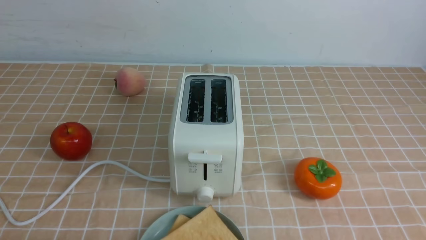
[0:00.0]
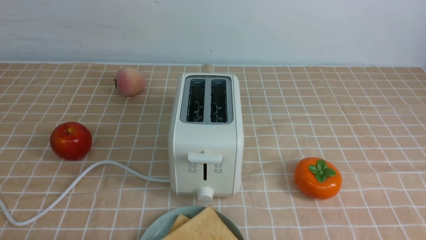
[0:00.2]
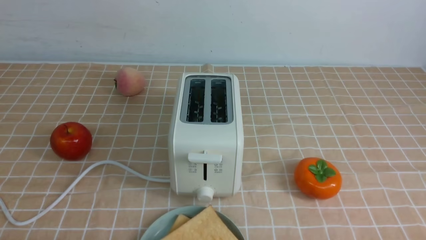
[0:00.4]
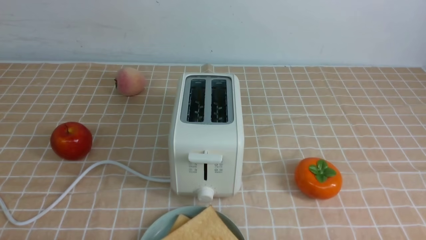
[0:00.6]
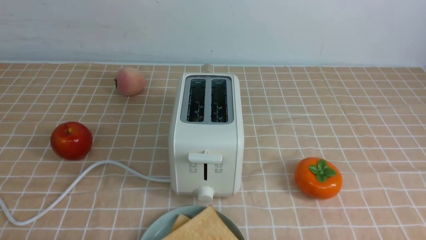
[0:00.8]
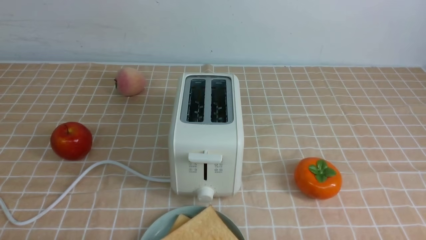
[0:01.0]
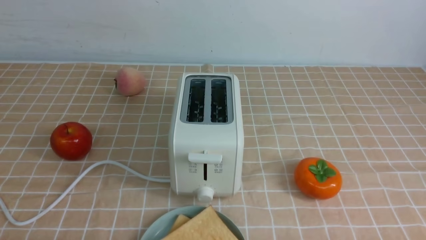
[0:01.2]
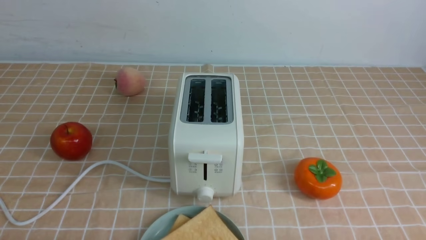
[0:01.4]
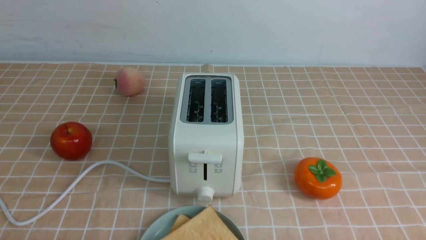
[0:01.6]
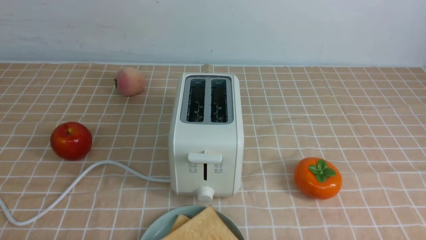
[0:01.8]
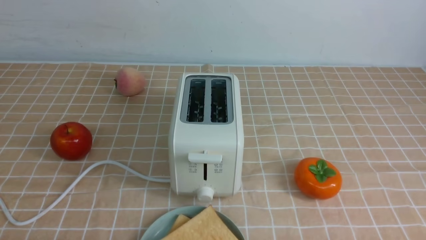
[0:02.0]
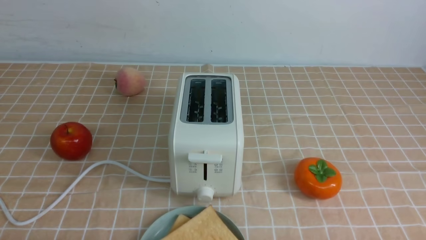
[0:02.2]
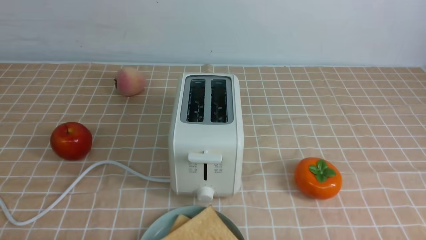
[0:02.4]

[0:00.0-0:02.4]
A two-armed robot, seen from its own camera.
Task of the whole recording: take toasted bread from bread machine on light coffee tablecloth place on plate.
0:01.2 to 0:02.4: Neither gripper changes place.

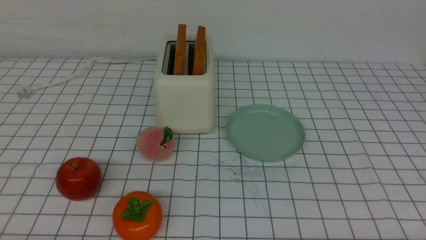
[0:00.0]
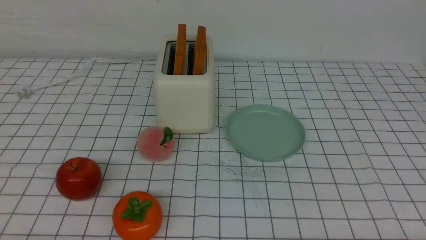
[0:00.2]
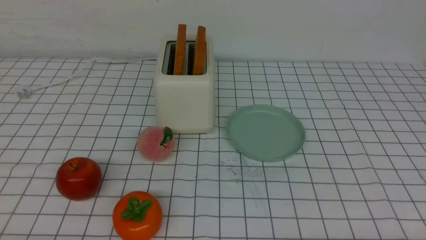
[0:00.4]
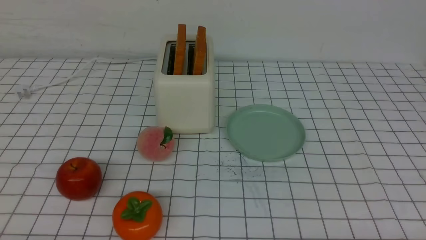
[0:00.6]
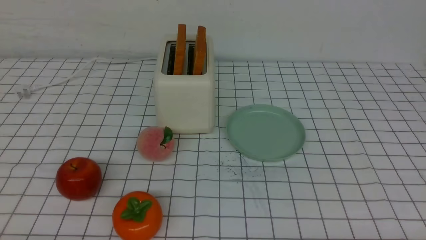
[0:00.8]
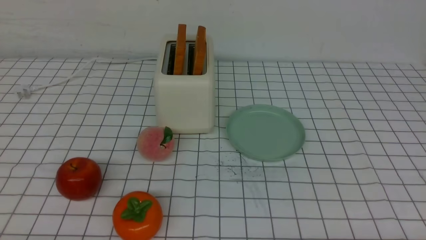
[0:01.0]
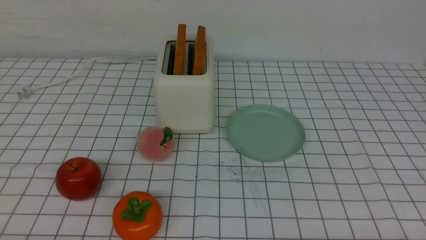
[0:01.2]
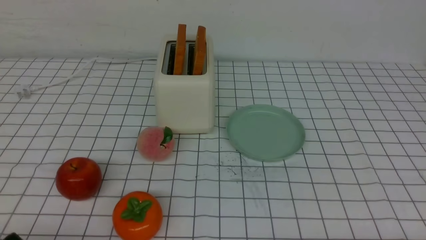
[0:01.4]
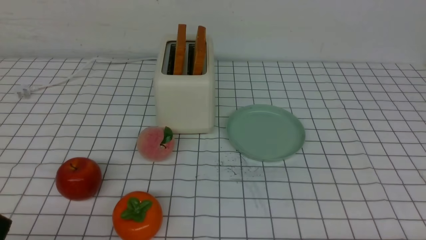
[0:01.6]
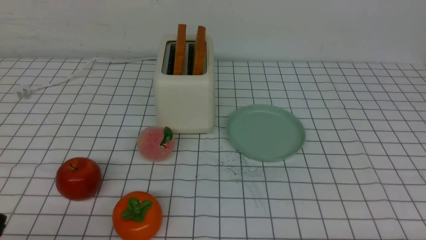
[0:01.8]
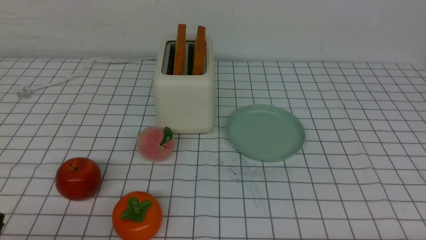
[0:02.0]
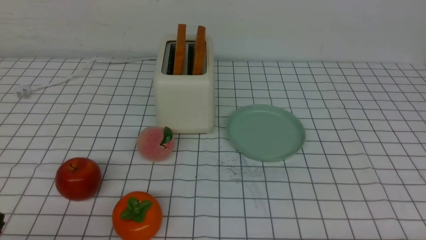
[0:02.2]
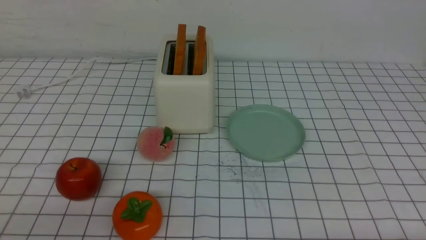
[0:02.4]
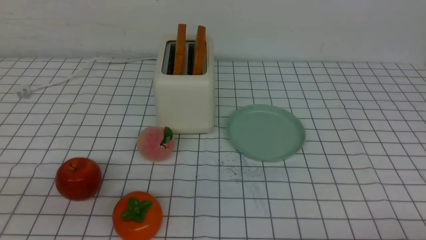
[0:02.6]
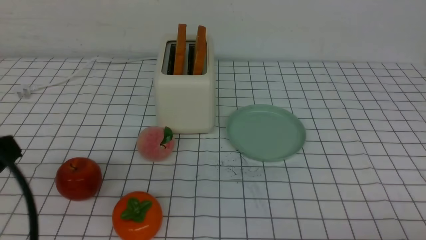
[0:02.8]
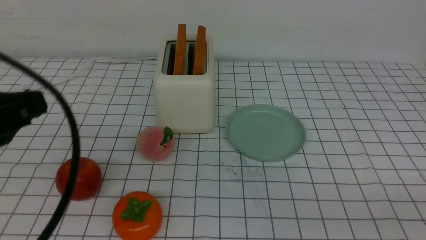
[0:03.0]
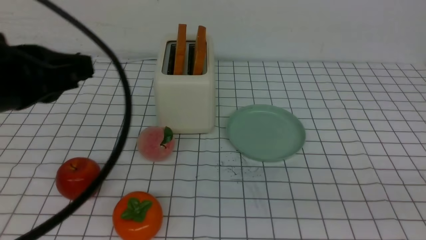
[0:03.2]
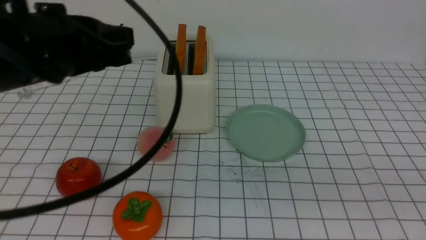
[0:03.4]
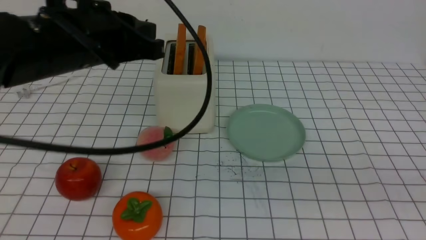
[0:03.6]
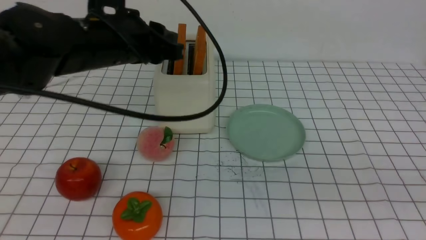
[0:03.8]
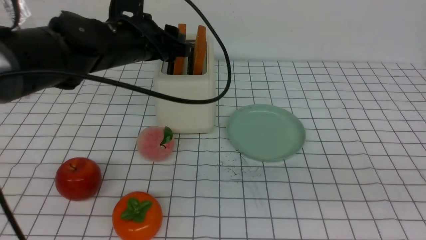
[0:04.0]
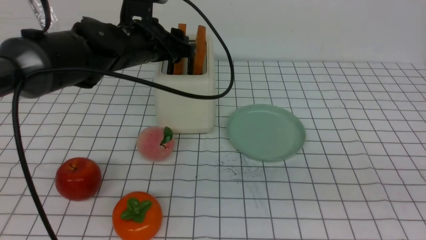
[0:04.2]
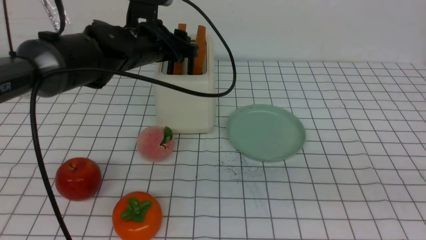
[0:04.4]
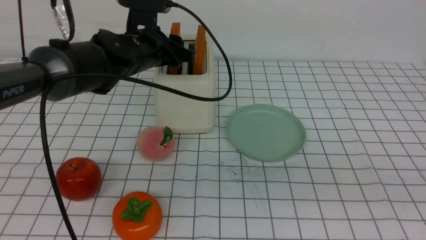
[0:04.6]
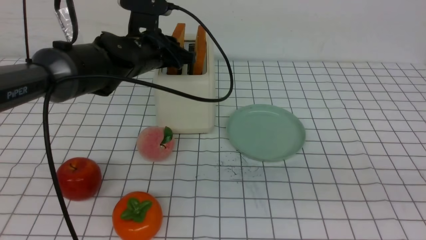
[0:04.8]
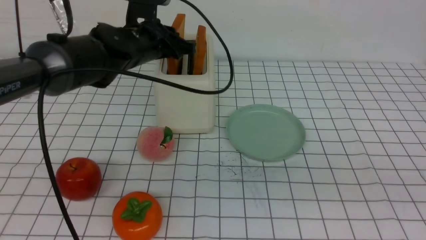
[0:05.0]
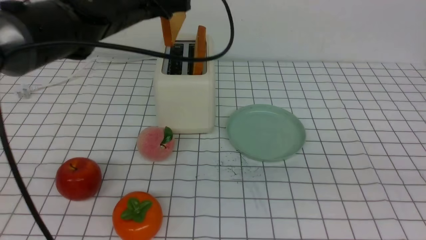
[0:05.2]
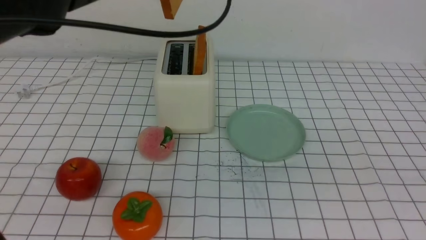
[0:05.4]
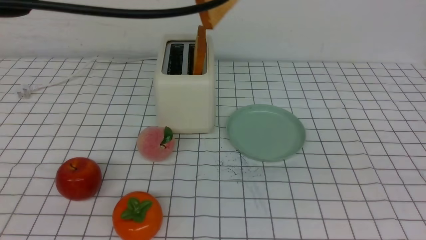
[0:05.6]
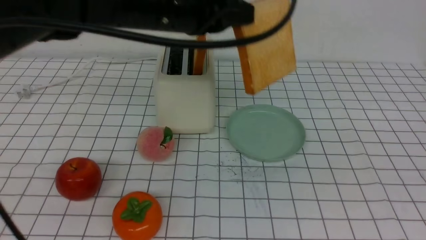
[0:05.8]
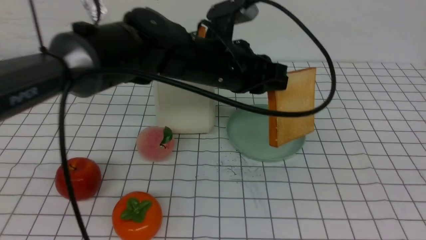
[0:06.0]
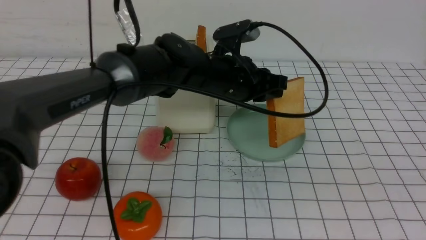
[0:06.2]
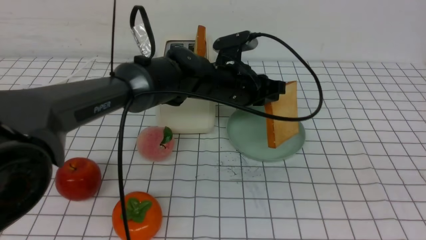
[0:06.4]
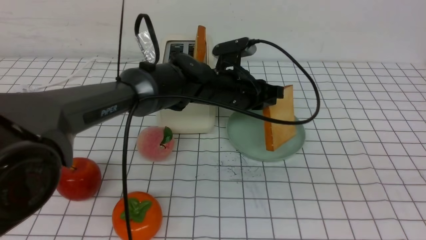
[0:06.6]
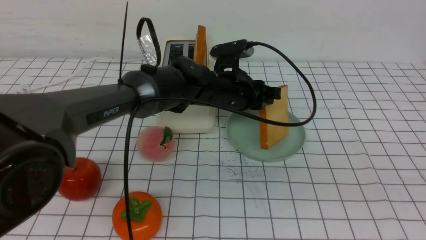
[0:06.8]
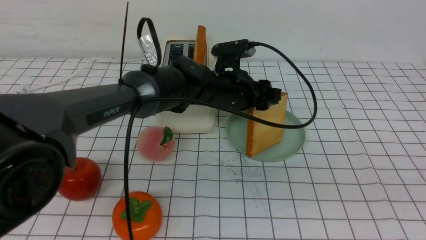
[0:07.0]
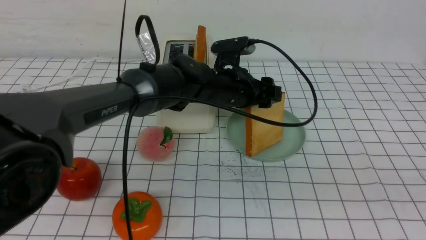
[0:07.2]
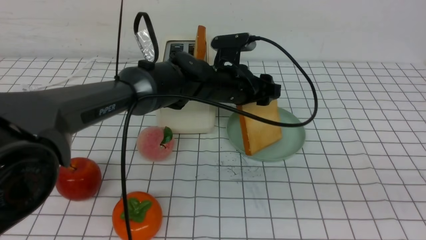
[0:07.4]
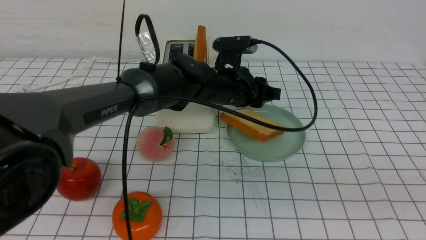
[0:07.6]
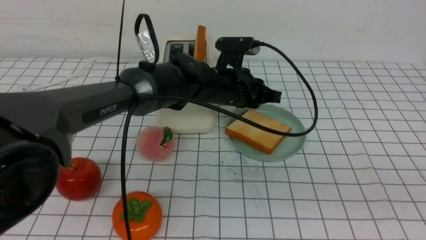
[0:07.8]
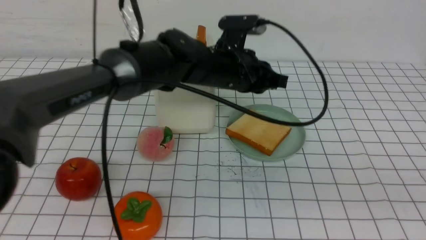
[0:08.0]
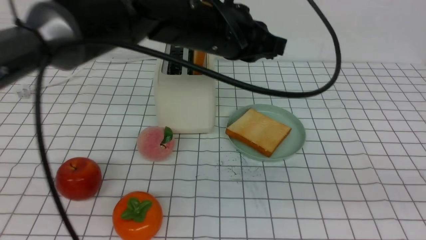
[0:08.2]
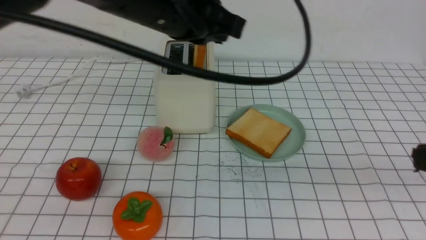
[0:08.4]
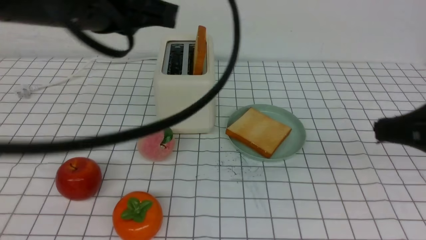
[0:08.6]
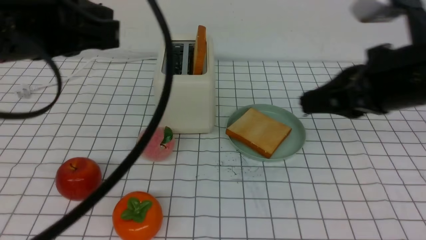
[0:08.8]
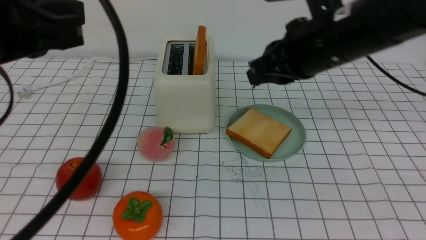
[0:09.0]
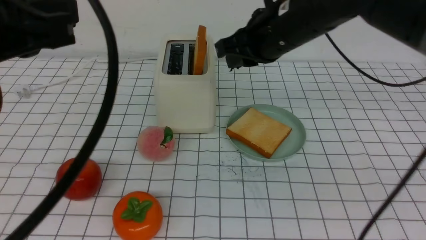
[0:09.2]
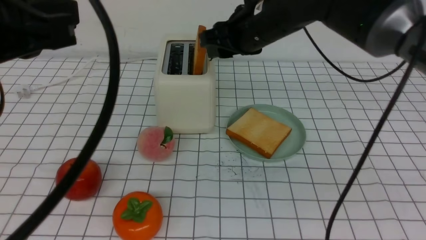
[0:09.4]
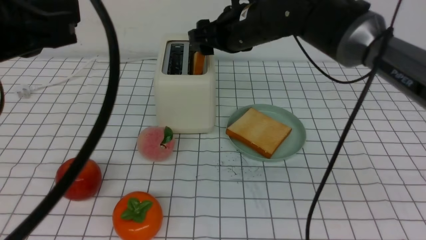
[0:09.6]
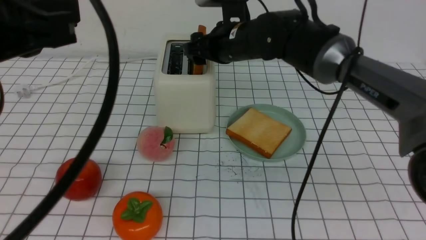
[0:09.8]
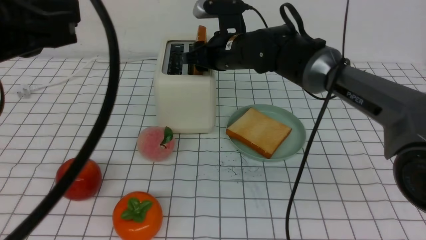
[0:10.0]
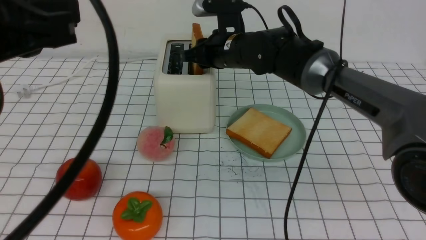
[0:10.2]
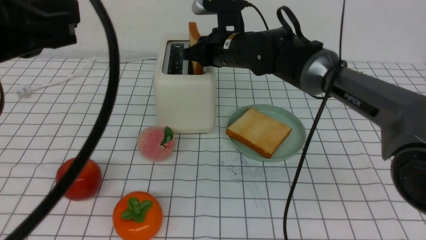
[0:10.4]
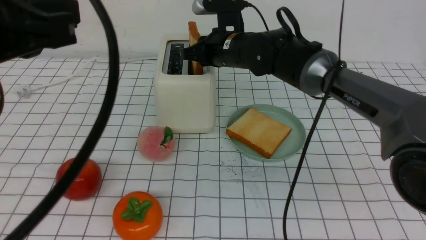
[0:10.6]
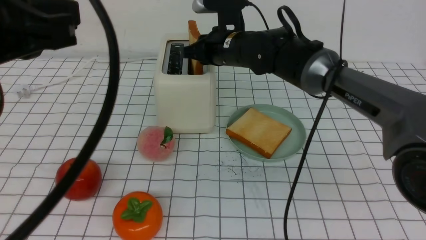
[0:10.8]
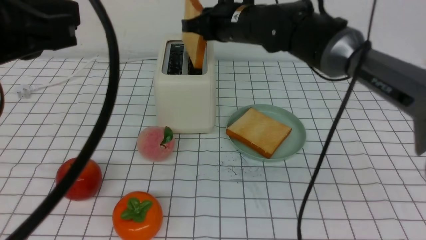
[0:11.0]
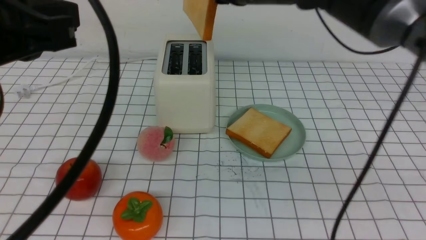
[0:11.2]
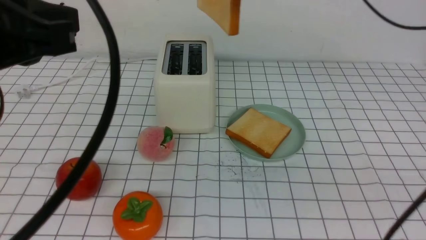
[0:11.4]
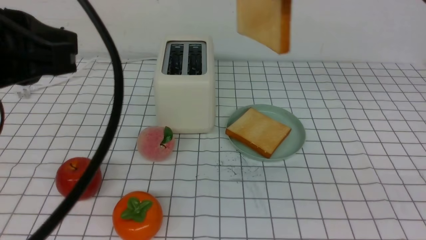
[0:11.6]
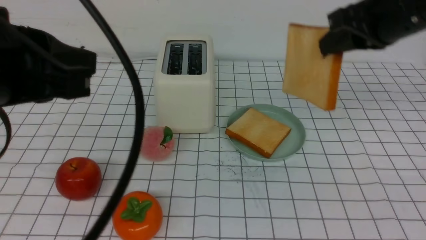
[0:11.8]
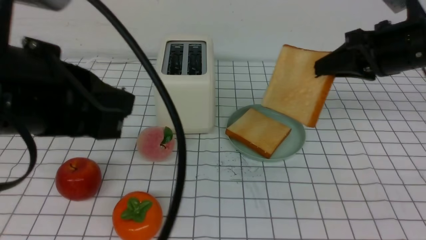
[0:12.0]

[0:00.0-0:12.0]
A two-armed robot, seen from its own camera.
Task of the whole recording: take toasted bread from bread machine on white checkered table place on plate.
Step, 0:00.0 to 0:05.0: use the left arm to take out a slice of bread.
Step, 0:05.2 to 0:07.4: use the left arm to put a slice of bread into the empty plate.
Step, 0:07.6 to 0:11.0: use the right arm to take out a slice of bread.
0:01.6 to 0:03.0: The left gripper travels upward and forward by roughly 20 cm, and closes.
0:03.0 to 0:04.4: The left gripper travels forward by roughly 30 cm, and opens. The right gripper travels upward by about 10 cm.
0:04.4 to 0:06.0: The left gripper moves to the right and backward, some 10 cm, travels upward and back again, roughly 10 cm each way, and closes.
0:06.0 to 0:07.6: The left gripper moves downward and forward, approximately 10 cm, and opens and closes again.
0:07.6 to 0:09.0: The right gripper shifts approximately 30 cm forward and to the left. The left gripper travels backward, upward and to the left by about 35 cm, and closes its fingers.
0:09.0 to 0:10.4: The right gripper shifts roughly 20 cm forward, downward and to the left, and opens, then closes again.
0:10.4 to 0:12.0: The right gripper is displaced to the right and backward by about 25 cm.

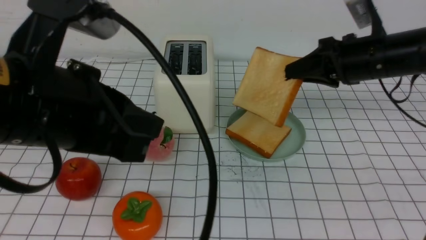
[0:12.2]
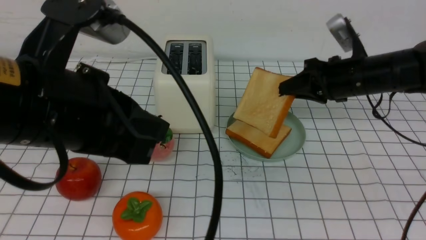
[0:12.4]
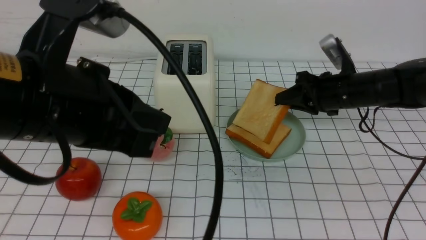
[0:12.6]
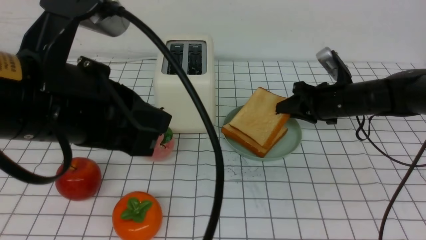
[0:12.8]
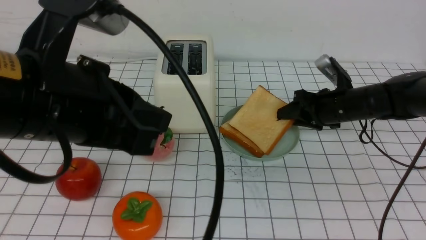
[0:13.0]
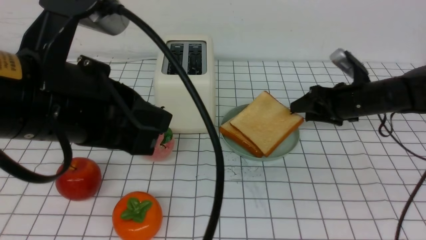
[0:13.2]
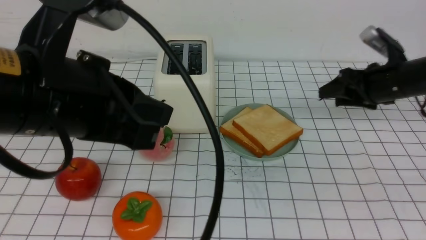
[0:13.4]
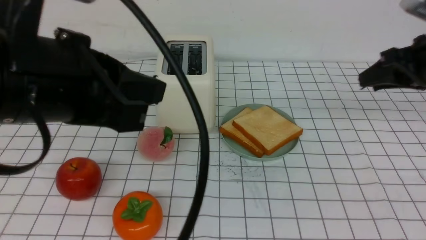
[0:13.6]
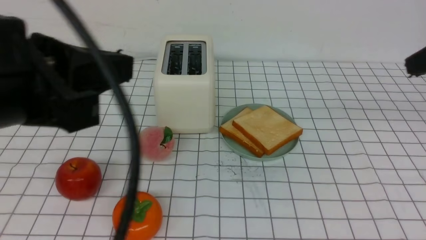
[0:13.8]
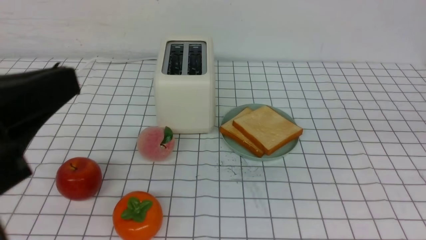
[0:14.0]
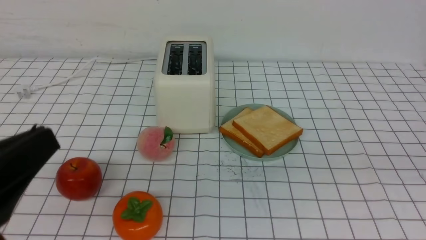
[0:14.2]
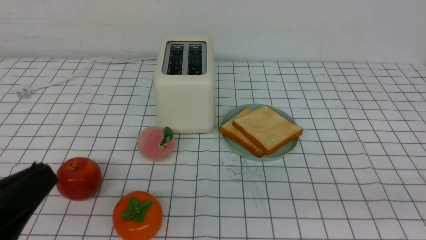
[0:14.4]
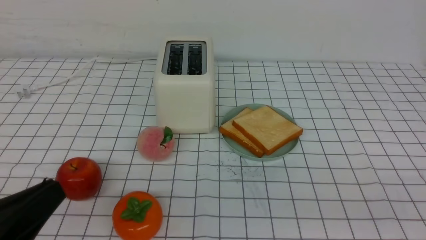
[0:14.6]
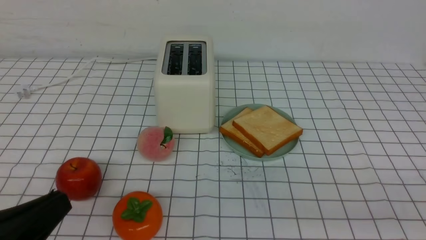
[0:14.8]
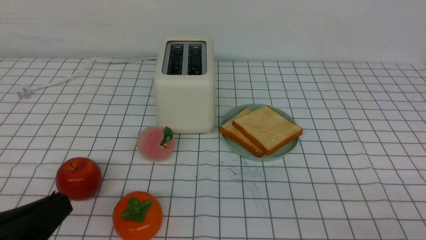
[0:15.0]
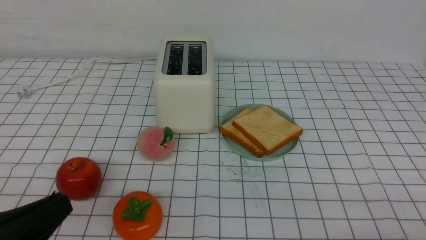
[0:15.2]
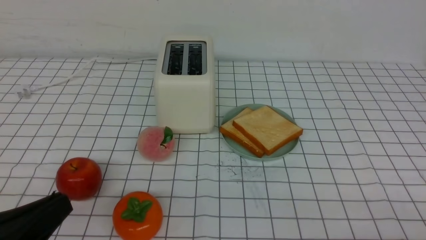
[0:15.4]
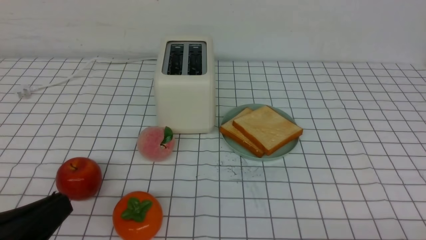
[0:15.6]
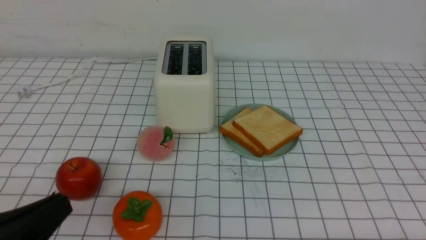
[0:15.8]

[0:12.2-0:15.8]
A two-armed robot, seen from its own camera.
Task of the whole recording: take toasted bread from bread machine on white checkered table place on plate.
Step, 0:12.2 to 0:13.4: use the right arm to put a slice of bread into the plate.
0:12.2 to 0:14.0: The right gripper heads backward and upward, covering roughly 20 cm, and opens, then closes again. The left gripper shifts about 10 cm backward and to the left.
0:14.0 to 0:15.8: The left gripper is displaced downward by about 10 cm; the right gripper travels downward and backward by about 30 cm.
